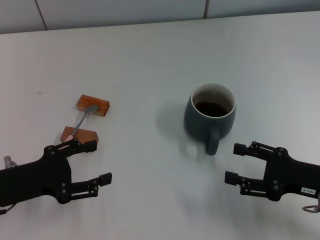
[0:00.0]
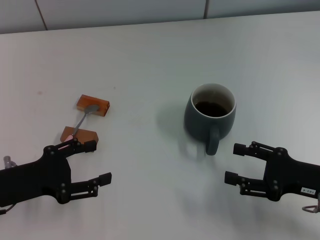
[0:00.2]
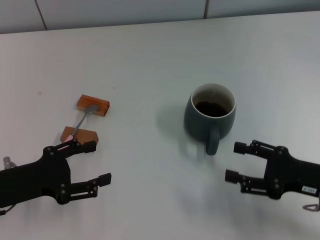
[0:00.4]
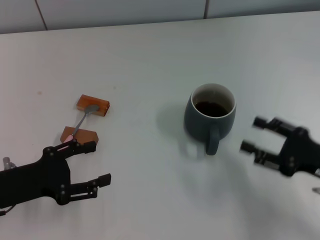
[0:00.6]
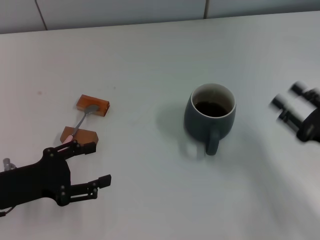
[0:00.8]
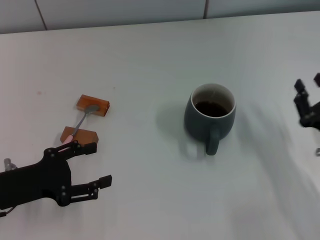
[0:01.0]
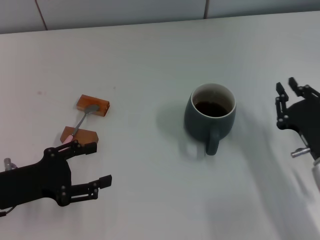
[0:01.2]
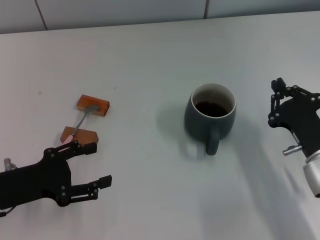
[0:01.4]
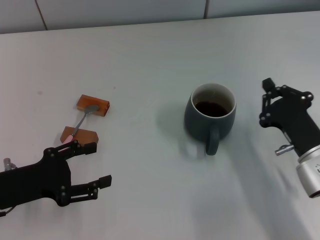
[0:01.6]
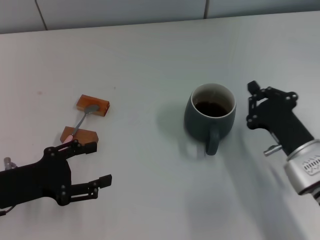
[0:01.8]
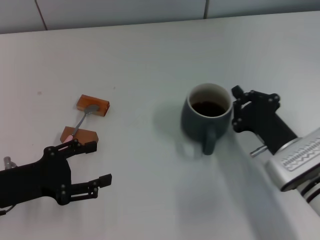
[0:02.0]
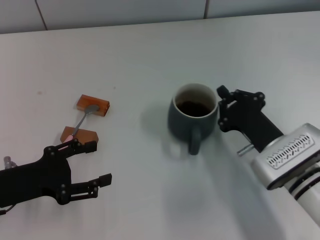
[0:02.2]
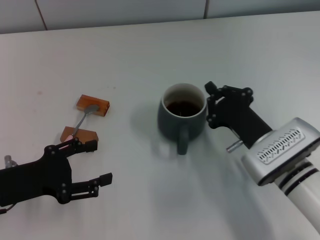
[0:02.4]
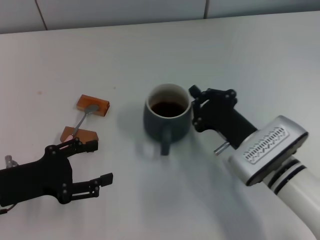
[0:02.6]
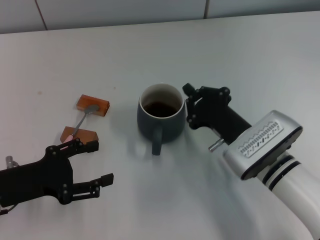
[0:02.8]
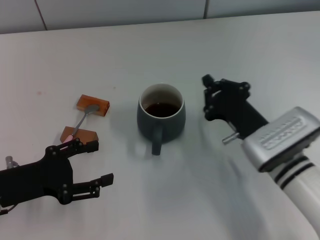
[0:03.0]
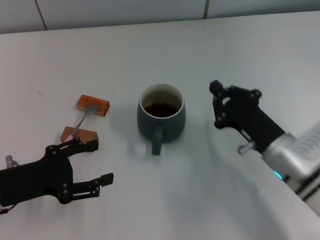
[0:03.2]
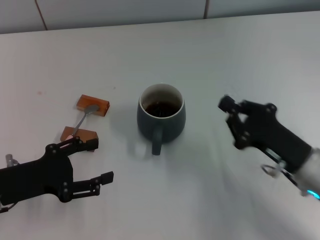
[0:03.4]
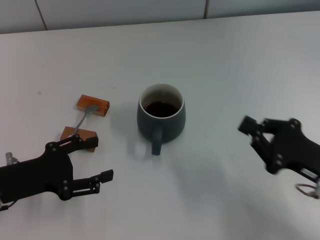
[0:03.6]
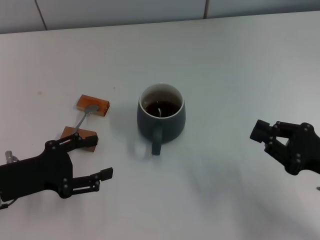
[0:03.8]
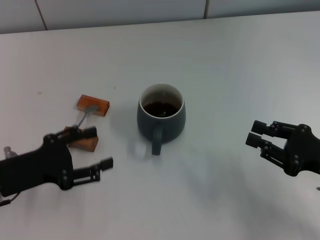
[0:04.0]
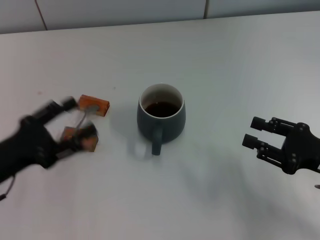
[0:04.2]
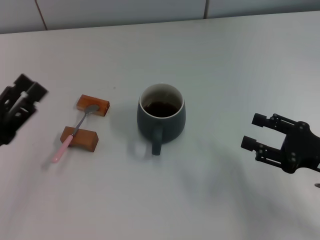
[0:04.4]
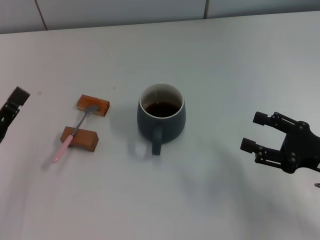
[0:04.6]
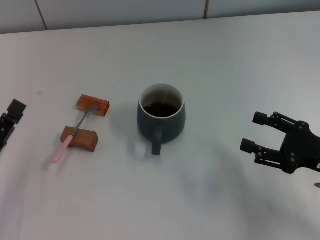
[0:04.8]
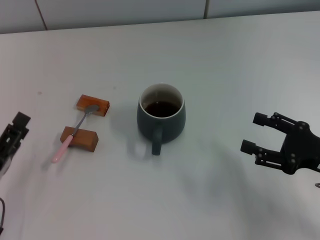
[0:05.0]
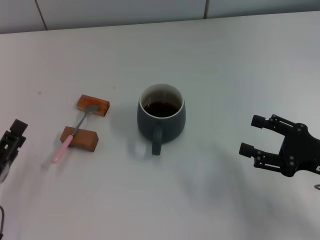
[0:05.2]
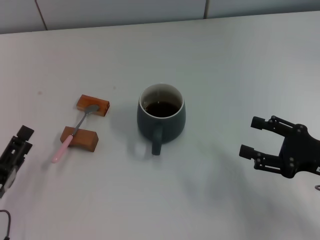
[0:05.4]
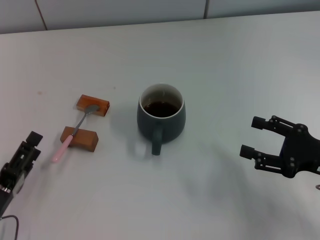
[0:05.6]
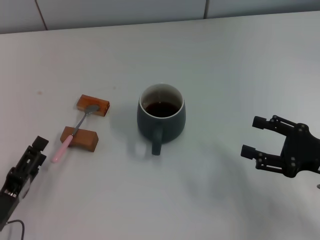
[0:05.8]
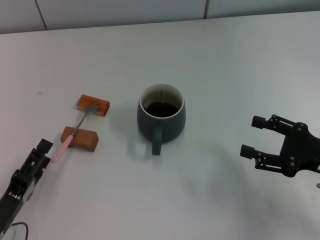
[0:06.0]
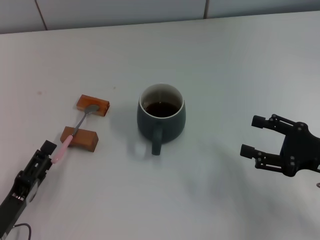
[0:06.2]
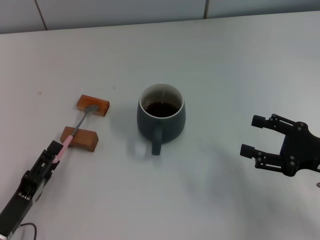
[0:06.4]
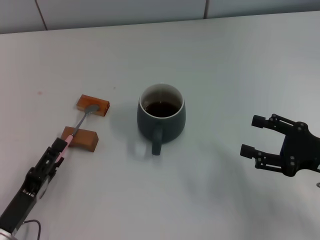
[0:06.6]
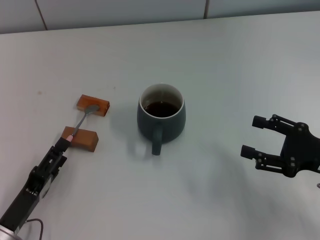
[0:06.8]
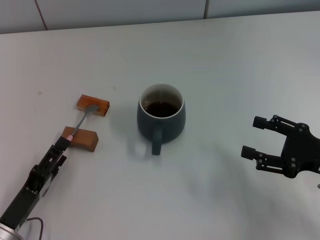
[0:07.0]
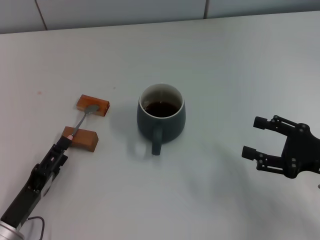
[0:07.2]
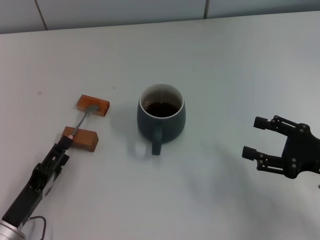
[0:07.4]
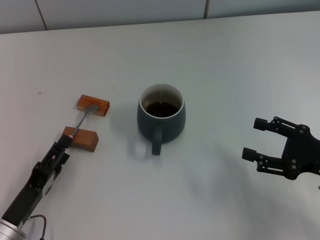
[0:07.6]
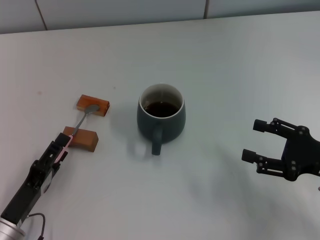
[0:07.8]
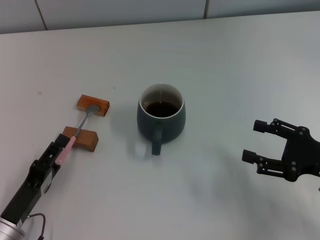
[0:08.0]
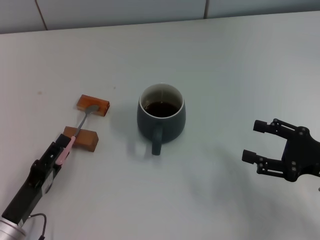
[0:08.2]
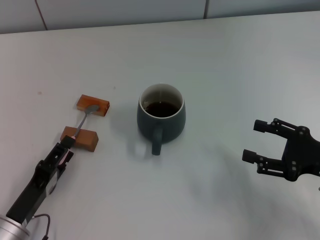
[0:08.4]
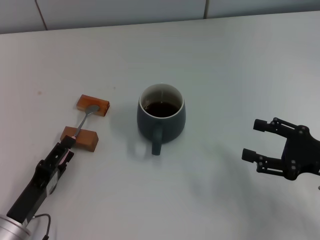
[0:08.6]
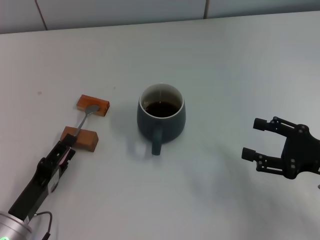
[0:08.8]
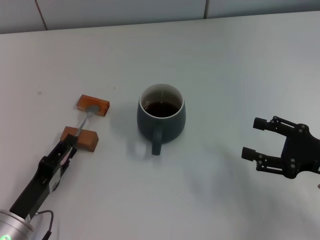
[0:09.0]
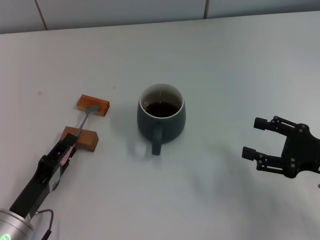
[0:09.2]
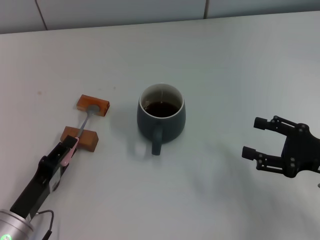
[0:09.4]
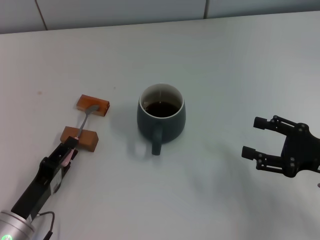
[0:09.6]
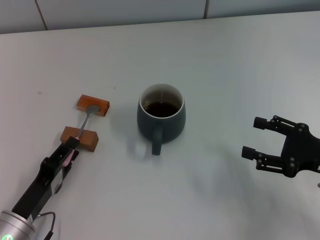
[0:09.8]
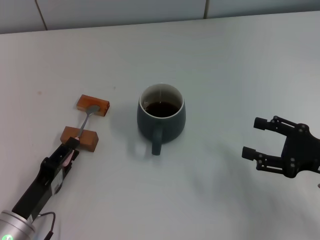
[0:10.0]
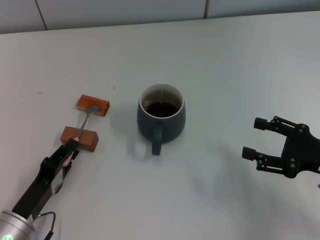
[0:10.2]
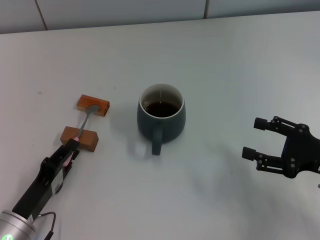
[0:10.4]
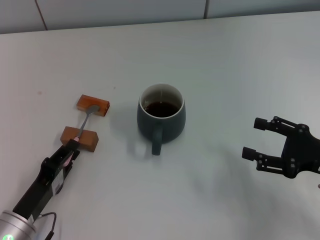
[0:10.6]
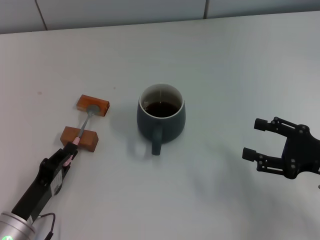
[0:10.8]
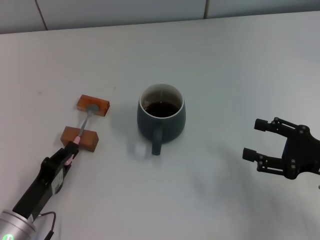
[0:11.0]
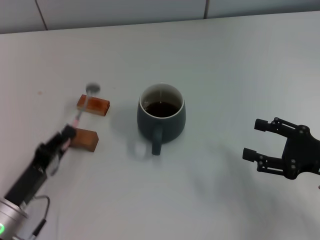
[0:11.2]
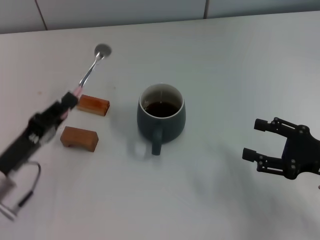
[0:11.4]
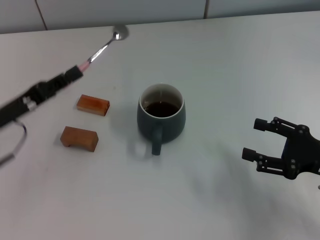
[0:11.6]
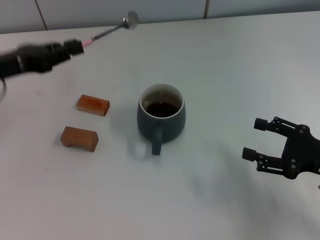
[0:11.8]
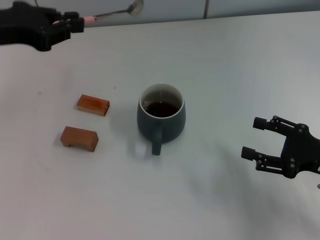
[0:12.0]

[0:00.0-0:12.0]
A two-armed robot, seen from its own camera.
Task of the whole recording: Move the grey cup to the center, lift the pink spoon, stir it three times in the cup, and put the spoon into the cup.
Step, 0.0 to 3.0 s: Move the cup with coffee to the center of view with the right gripper.
Step, 3.2 to 11.4 s: Pick up the spoon with the left gripper.
0.0 to 1.6 s: The right gripper shifts about 5 cm to the left, and closes.
1.6 to 3.0 s: The right gripper moves to the left, about 5 cm.
3.0 to 4.4 s: The right gripper moves to the right, approximately 15 cm, and opens.
4.4 to 6.0 s: The left gripper heads downward and backward, covering some 10 cm.
6.0 to 7.6 s: There are only small adjustments of the grippers.
7.6 to 9.0 s: Neither gripper changes place.
9.0 to 10.4 s: The left gripper closes.
10.4 to 12.0 s: The left gripper shifts roughly 30 cm upward and forward.

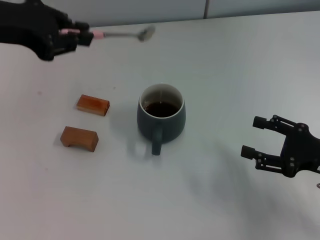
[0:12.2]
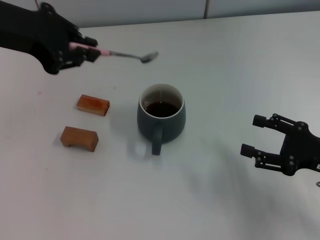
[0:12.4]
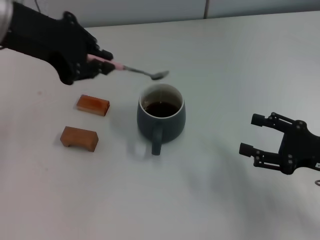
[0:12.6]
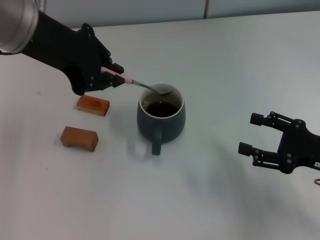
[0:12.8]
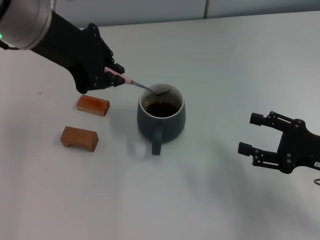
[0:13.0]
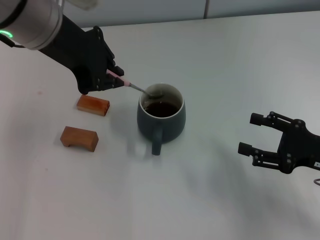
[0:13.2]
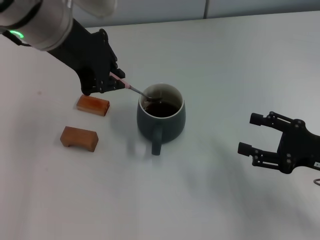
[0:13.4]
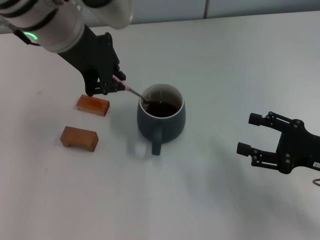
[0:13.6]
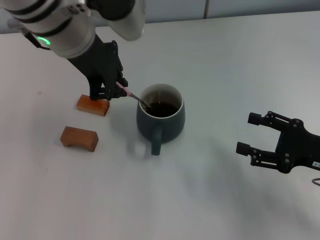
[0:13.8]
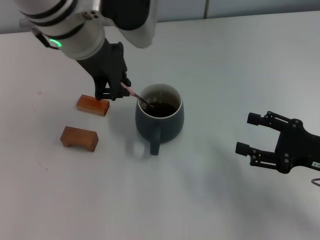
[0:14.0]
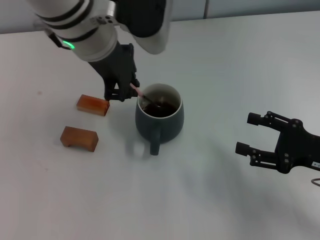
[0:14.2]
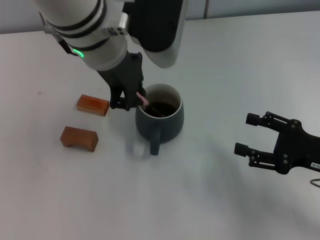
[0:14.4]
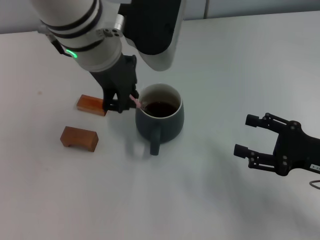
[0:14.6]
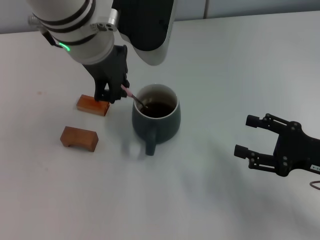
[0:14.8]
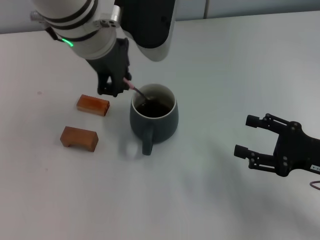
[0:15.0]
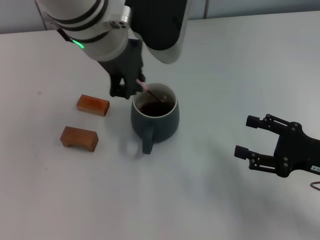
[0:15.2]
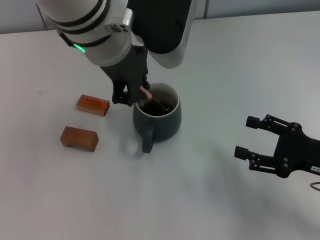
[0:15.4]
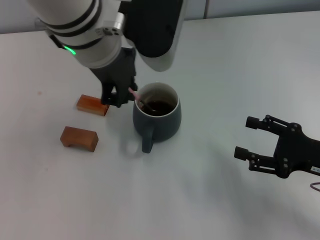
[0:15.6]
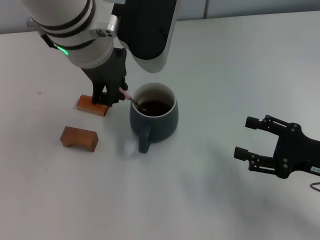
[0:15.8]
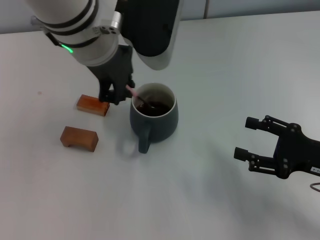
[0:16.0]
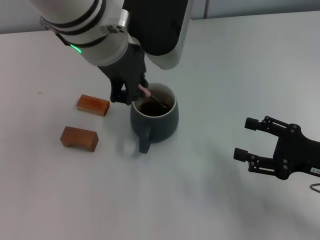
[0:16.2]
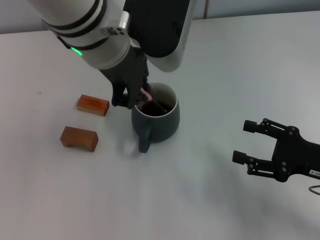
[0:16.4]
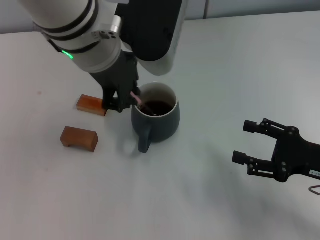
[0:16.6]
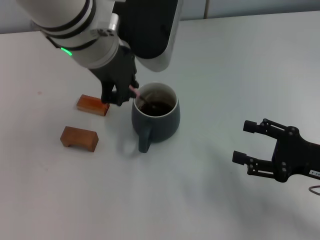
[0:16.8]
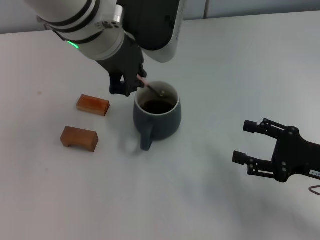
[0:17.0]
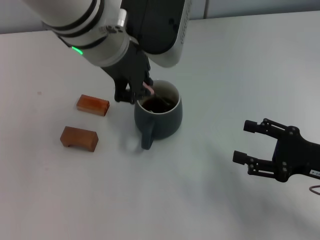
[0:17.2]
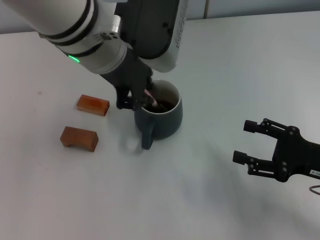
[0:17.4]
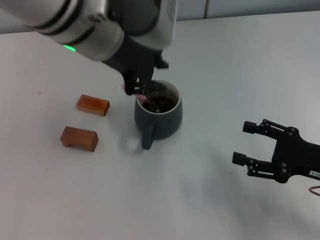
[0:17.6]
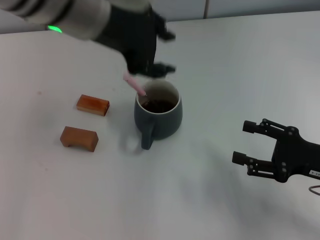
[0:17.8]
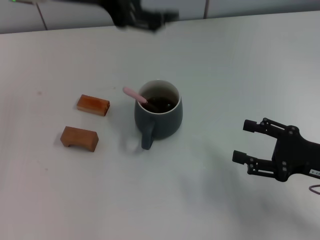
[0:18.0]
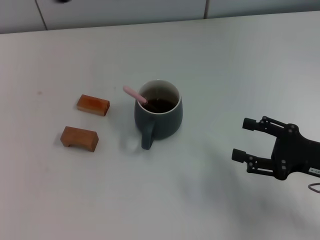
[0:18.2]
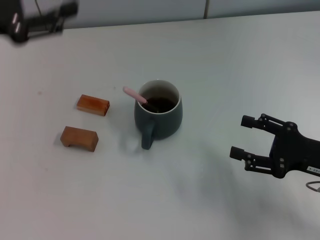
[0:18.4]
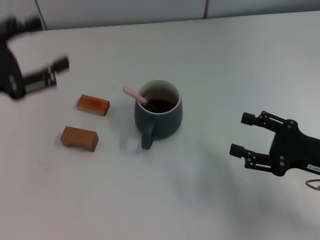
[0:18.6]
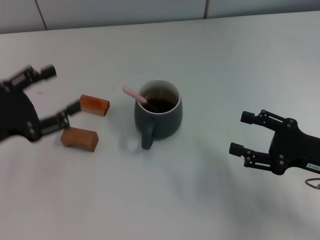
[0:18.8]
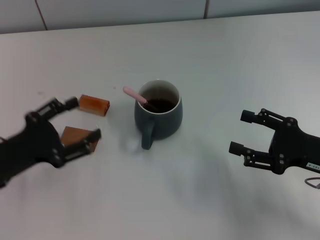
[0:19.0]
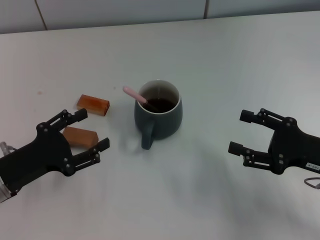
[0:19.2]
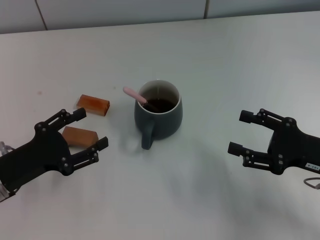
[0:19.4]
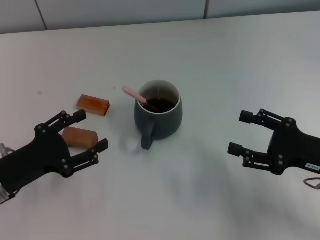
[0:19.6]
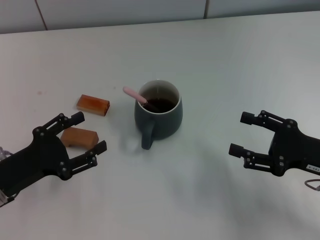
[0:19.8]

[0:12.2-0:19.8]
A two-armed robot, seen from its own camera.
Task of the whole recording: Move the grey cup to the center, lift the pink spoon, stir it three times in the cup, and put the spoon into the cup.
Step, 12.2 to 17.6 s: Stir the coffee in the cup with the left gripper.
12.2 to 13.8 s: The left gripper travels to the right by some 15 cm.
13.8 to 16.8 s: The grippers move only a little.
16.8 to 18.2 s: The left gripper is displaced to the left by approximately 15 cm, and opens its fingers.
18.2 to 19.8 s: The left gripper shifts approximately 25 cm downward and backward.

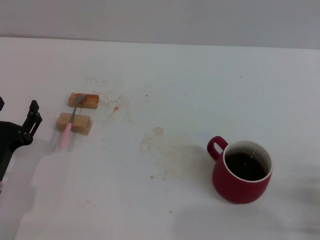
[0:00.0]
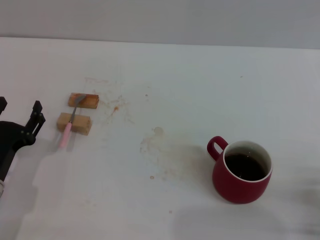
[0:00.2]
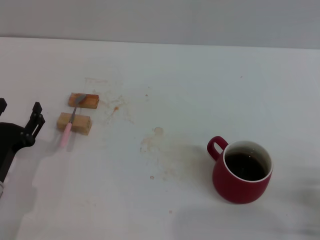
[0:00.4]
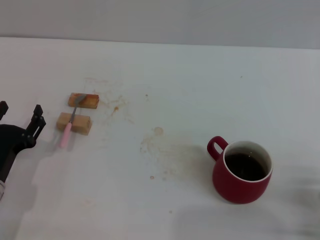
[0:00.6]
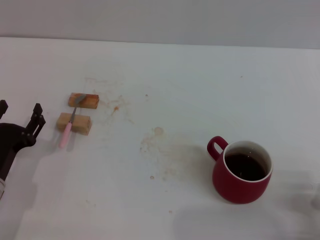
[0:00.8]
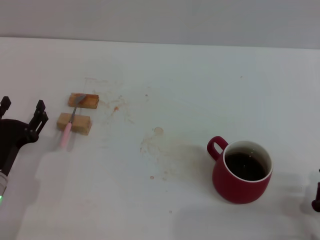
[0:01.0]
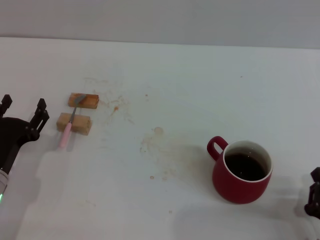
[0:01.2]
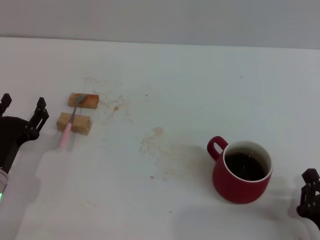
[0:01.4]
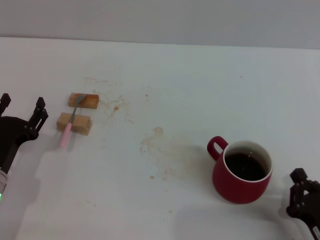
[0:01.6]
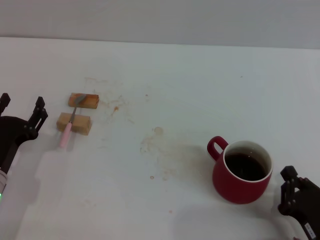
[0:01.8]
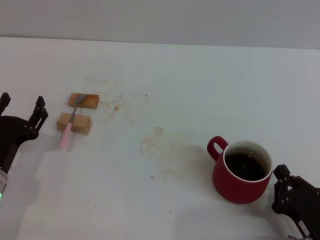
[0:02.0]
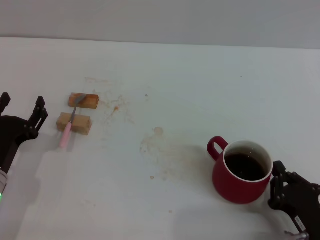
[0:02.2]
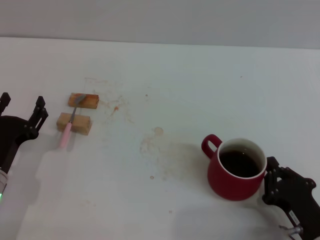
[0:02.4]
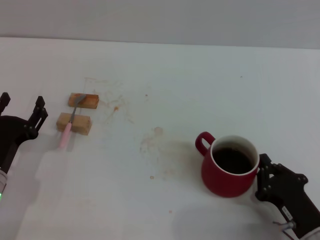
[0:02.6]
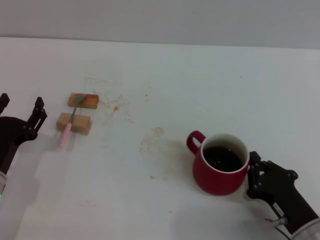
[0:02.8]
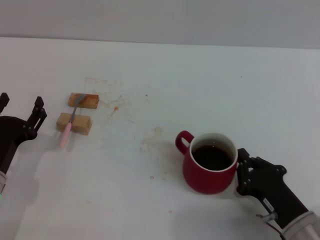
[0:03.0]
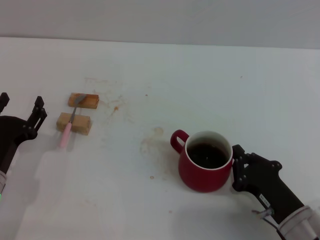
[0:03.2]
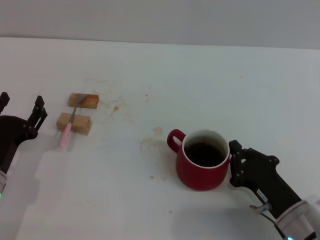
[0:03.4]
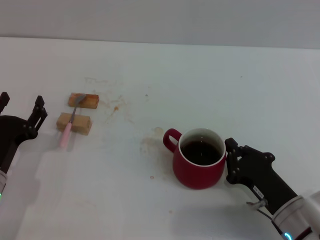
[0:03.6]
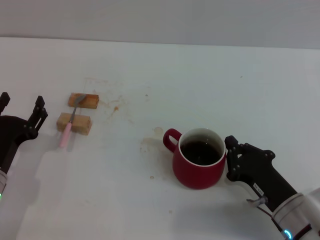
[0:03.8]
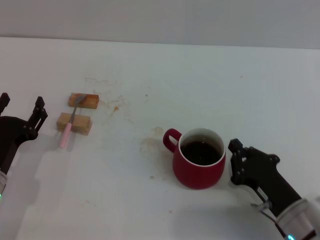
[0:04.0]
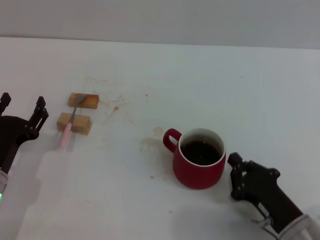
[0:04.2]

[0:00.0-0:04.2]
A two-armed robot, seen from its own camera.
Task of the whole recording: Move the red cup to the center, lift the pink spoon, stir it three times in the cup, and put the spoon into the cup.
0.0 to 1.4 s: There are only small adjustments of the grippers.
1.4 to 2.8 s: The right gripper goes about 5 cm forward.
2.8 to 4.2 s: The grippers stay close to where they were, moving slightly.
